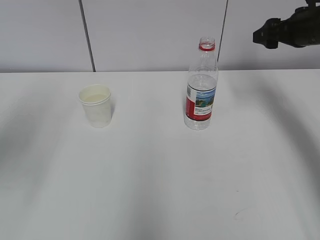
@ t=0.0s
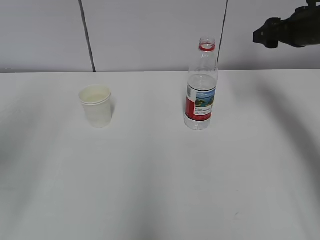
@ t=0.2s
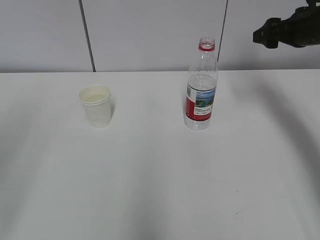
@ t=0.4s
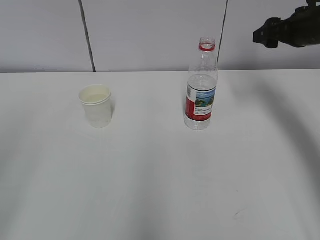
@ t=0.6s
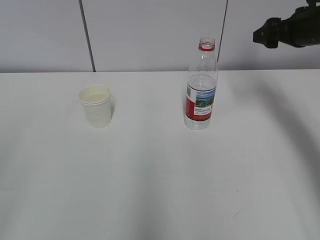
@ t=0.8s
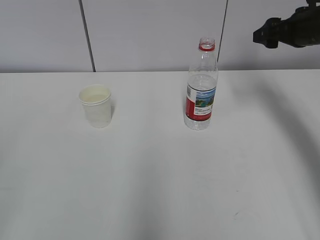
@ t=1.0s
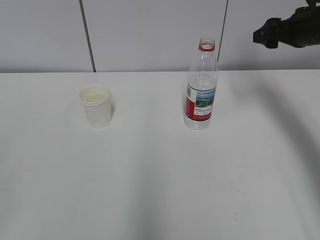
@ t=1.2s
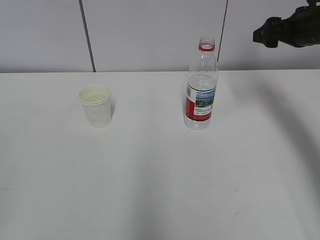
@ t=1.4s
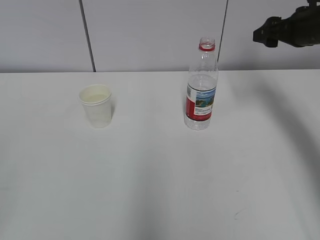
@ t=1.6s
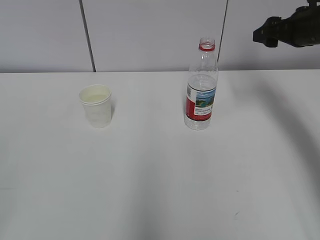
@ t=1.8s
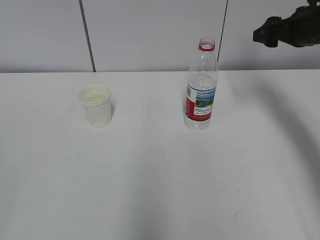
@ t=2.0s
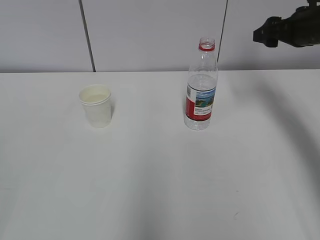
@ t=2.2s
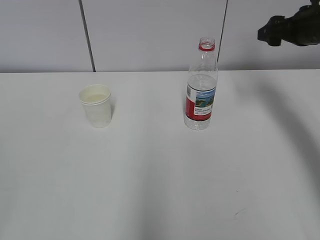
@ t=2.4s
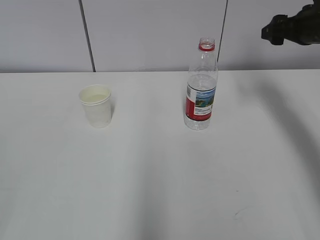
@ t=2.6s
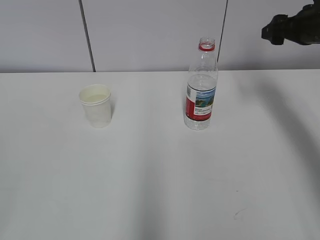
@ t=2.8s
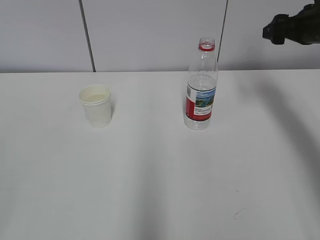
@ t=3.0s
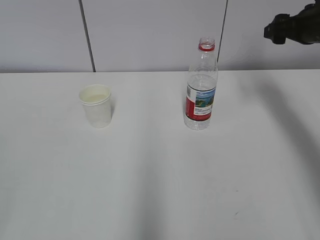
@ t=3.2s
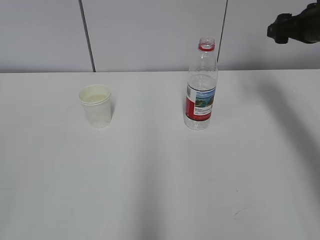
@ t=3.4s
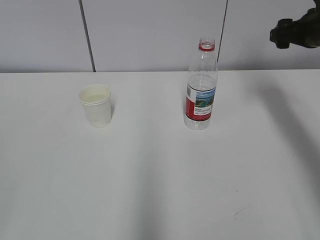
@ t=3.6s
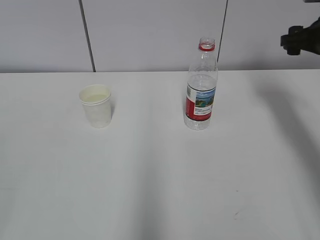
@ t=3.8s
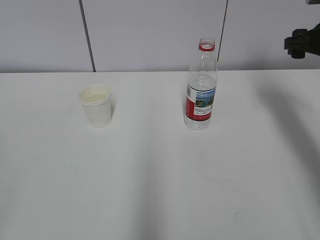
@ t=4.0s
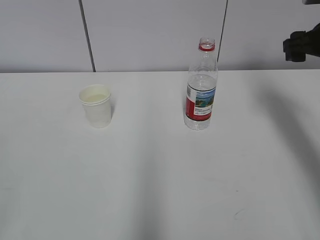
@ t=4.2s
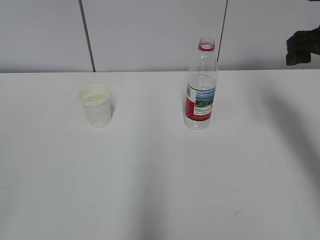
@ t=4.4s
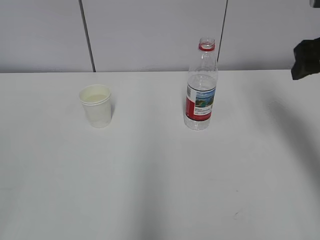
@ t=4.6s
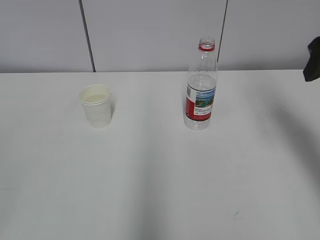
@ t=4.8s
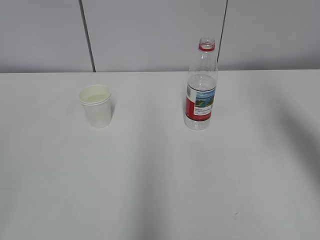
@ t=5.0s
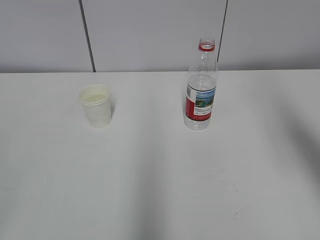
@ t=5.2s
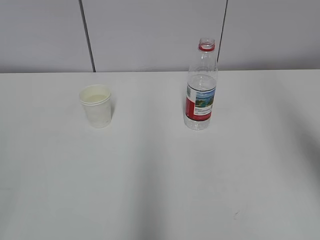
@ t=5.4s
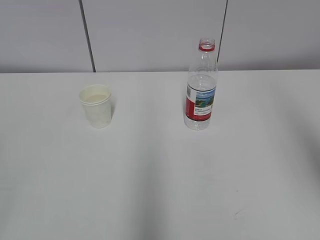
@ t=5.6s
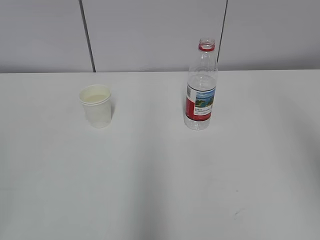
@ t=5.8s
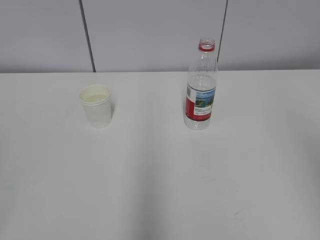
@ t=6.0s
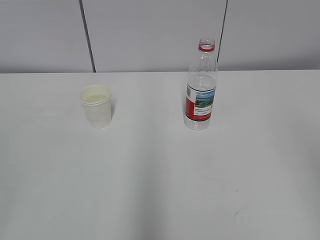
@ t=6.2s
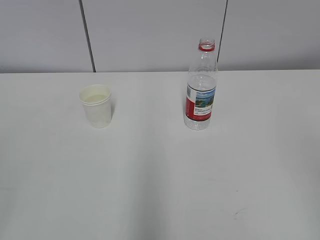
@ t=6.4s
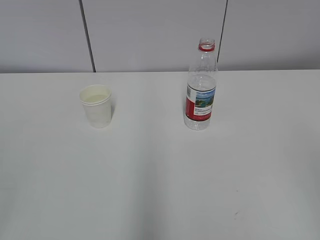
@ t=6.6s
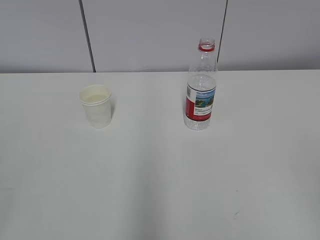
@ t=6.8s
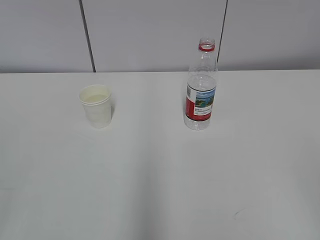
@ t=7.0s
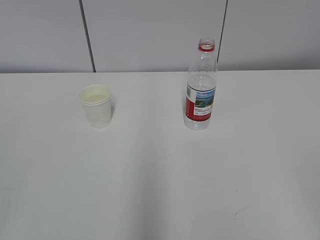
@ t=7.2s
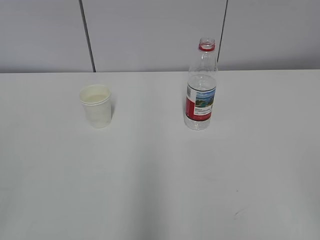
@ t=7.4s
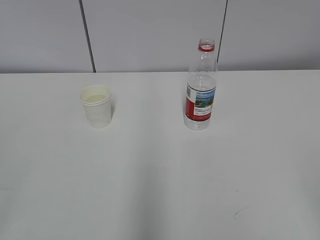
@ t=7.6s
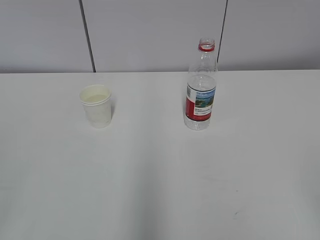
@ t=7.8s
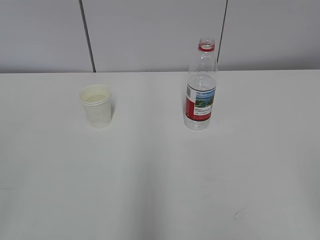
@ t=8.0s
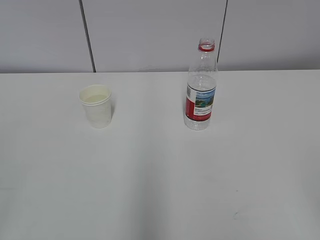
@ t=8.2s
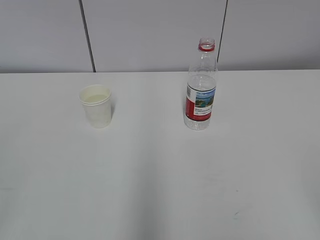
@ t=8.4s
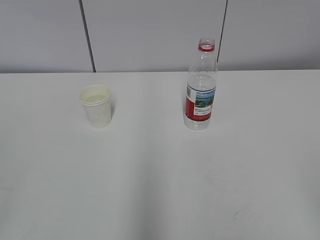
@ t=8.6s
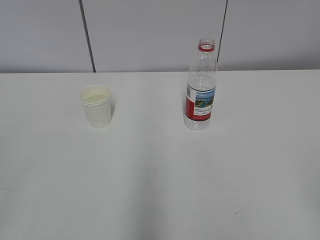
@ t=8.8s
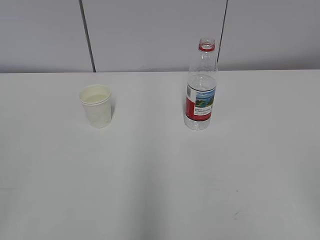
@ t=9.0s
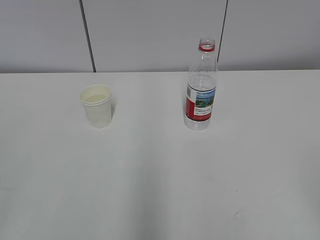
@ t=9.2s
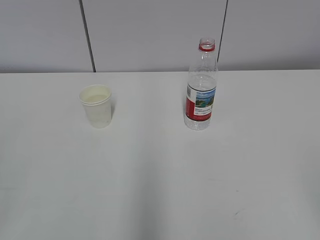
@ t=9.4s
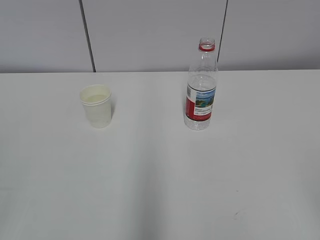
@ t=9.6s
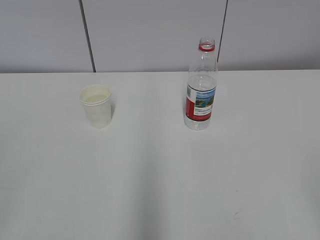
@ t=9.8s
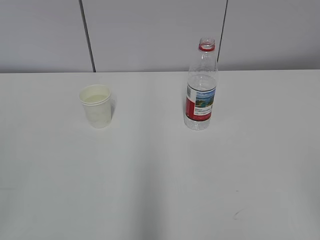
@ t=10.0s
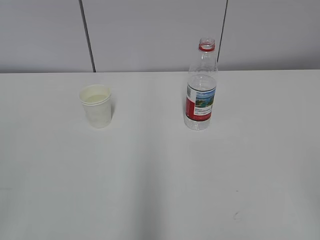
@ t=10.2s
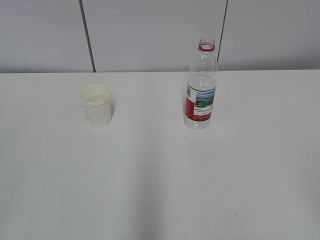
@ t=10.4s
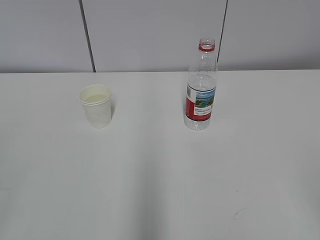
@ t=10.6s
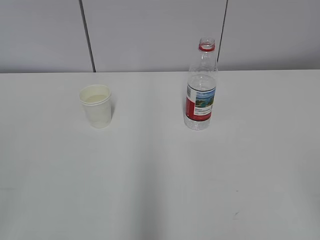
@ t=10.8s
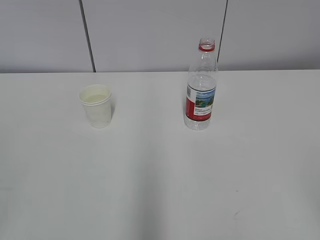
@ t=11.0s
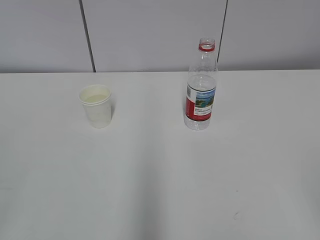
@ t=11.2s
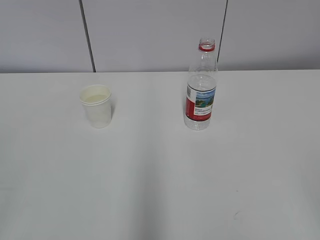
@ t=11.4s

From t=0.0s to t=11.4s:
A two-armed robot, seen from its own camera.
From t=4.2s to t=5.6s: The right gripper moves backward and upward, roughly 30 cm.
From t=8.6s to t=11.4s: Both grippers stay put.
